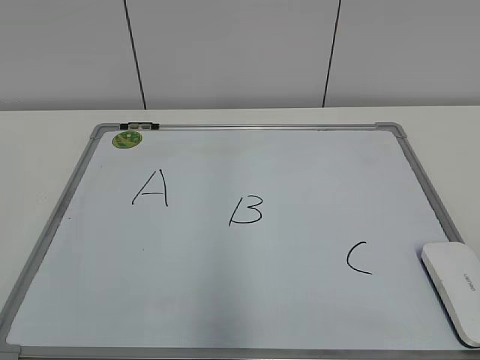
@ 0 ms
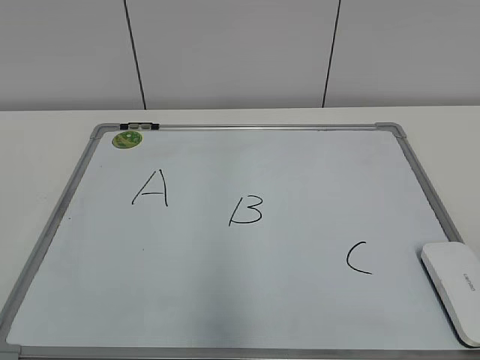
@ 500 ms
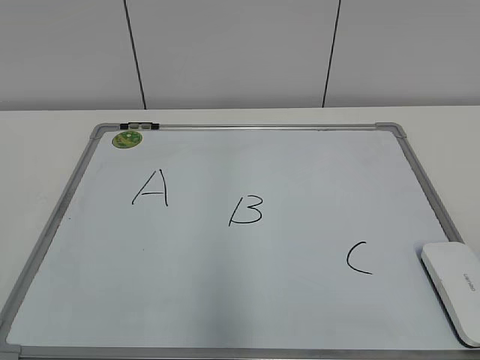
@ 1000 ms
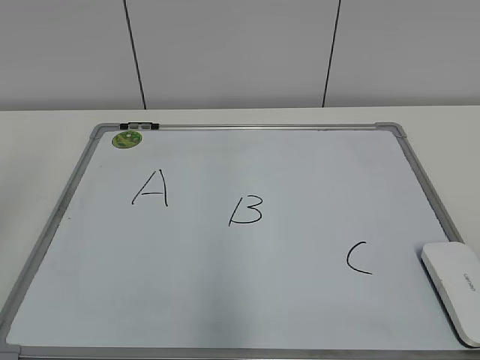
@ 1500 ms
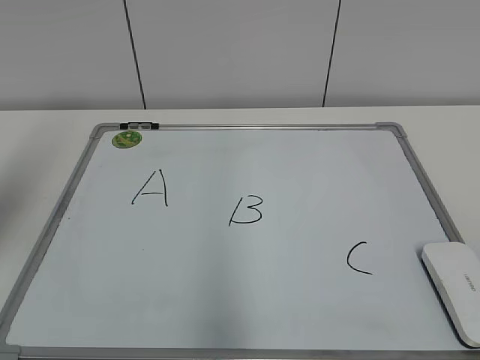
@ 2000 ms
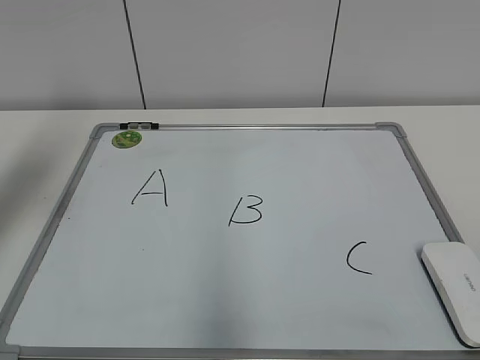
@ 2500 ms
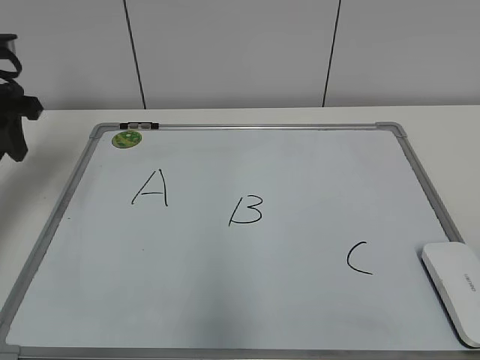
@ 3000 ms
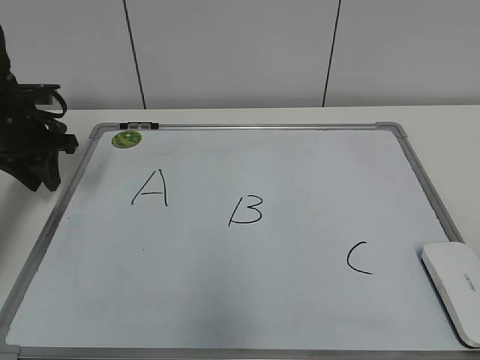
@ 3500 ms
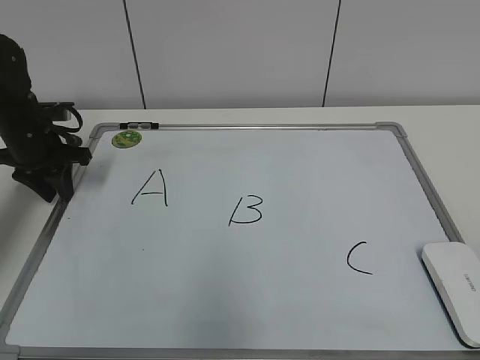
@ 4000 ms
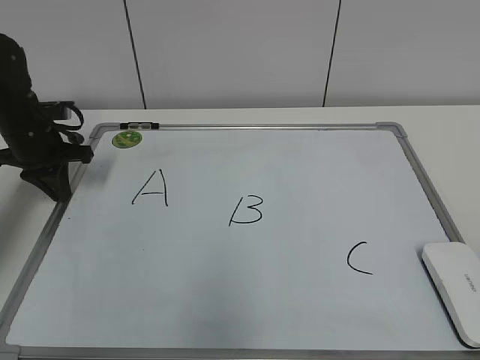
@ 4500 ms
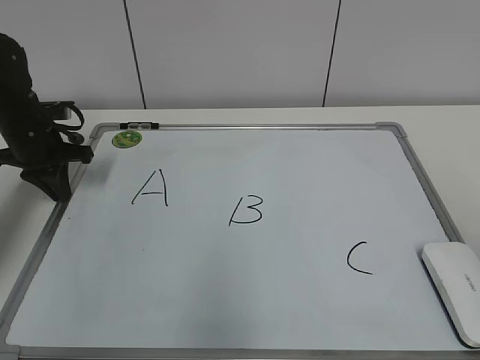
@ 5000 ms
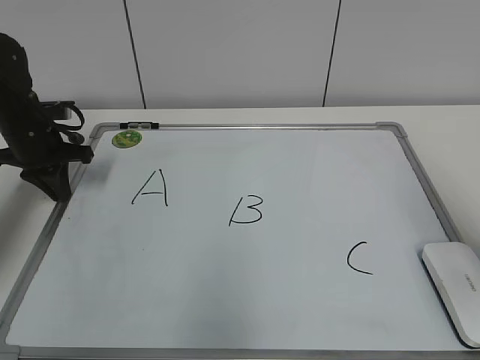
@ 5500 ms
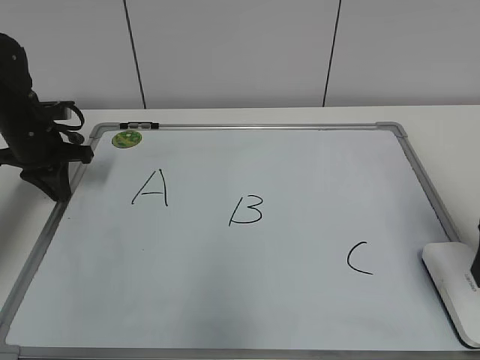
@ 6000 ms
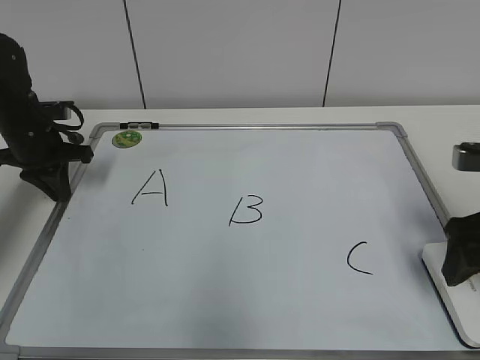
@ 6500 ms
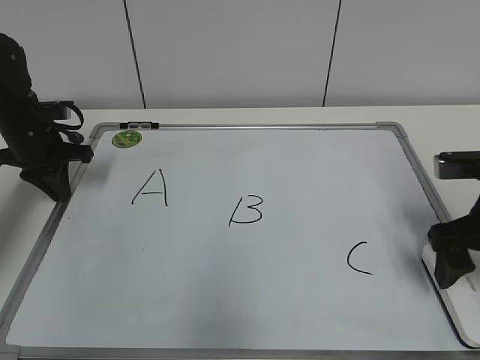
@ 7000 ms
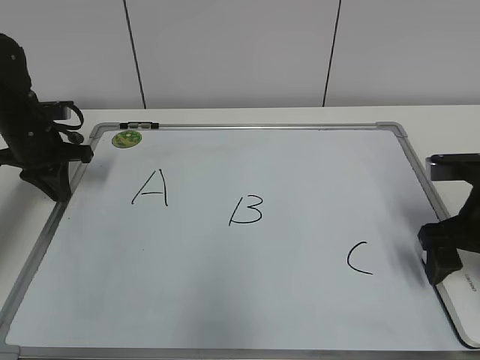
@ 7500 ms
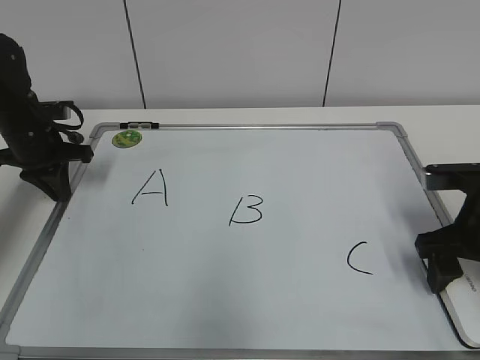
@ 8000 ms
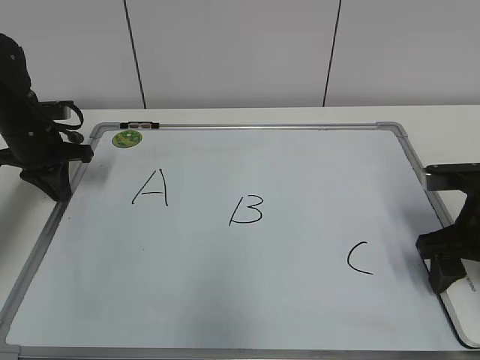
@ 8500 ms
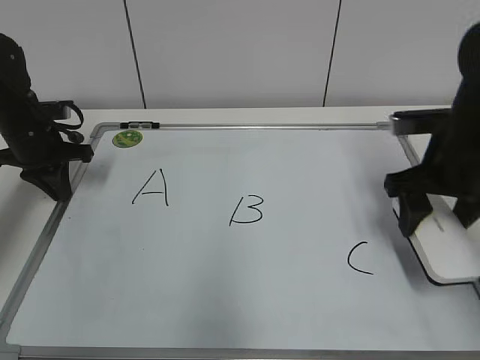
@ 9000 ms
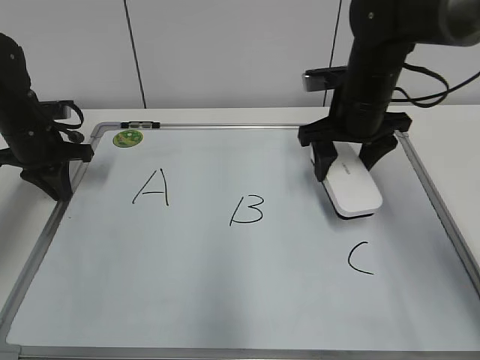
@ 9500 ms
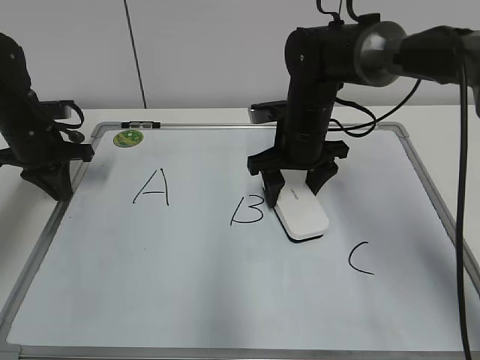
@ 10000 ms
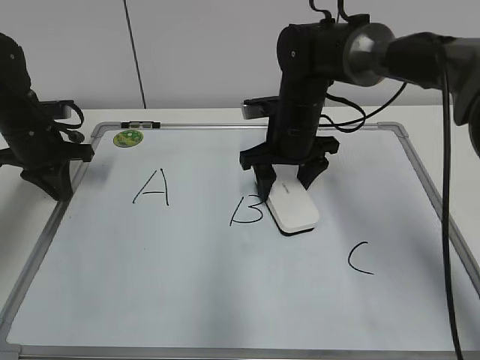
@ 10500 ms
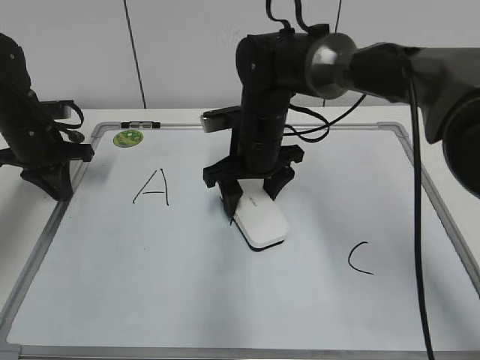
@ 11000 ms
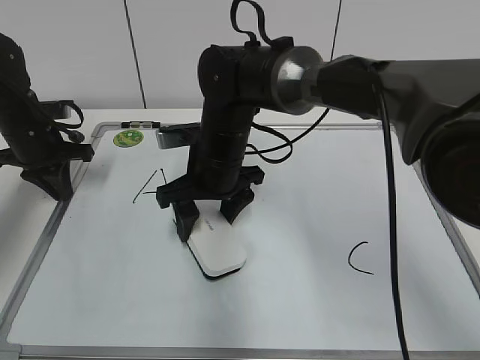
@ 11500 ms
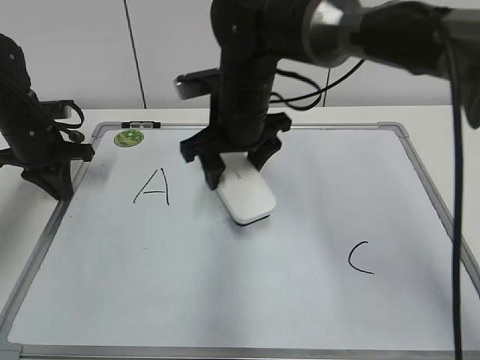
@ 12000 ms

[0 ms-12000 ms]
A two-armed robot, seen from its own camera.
Task of the whole recording: pick up the eraser on the blackboard and erase the letter "B".
Step, 0 ms to 4000 ms: Hold the drawing board steady with your left hand.
Step, 4500 ms to 8000 ms: Grab the eraser with your right hand.
Step, 9000 ms to 11500 ms: Erase the letter B with your right hand.
2000 ms to 4000 ms: The left gripper travels downward and forward by about 30 cm.
4000 ms to 6000 ms: The right gripper goes some 25 cm forward, and opens, while the left gripper closes up.
6000 ms to 8000 ms: The right gripper travels downward and forward by approximately 10 cm, and closes.
8000 ms to 10000 ms: The right gripper heads to the left and forward, covering approximately 25 cm.
10000 ms to 12000 ms: The right gripper is displaced to the left and upward by approximately 10 cm.

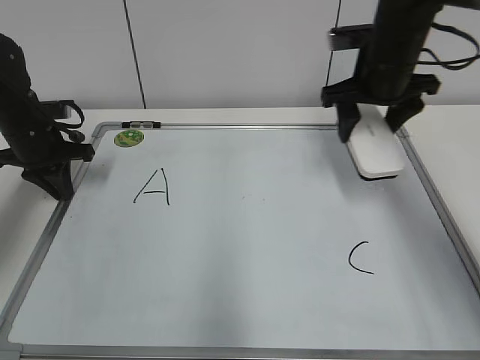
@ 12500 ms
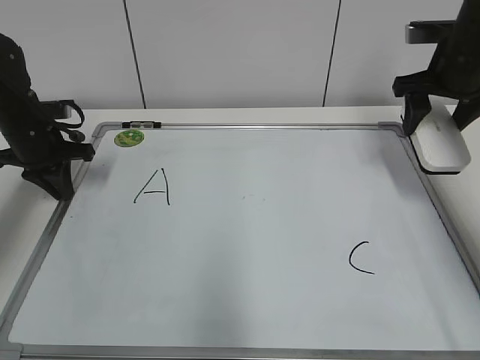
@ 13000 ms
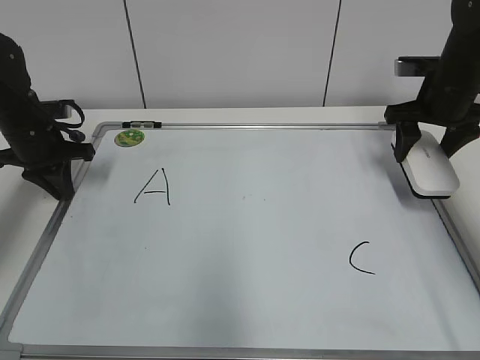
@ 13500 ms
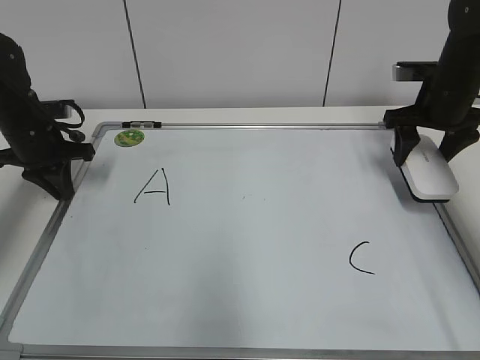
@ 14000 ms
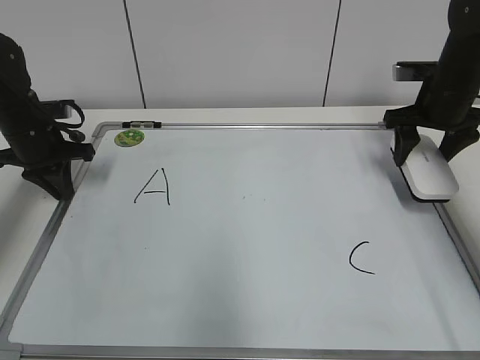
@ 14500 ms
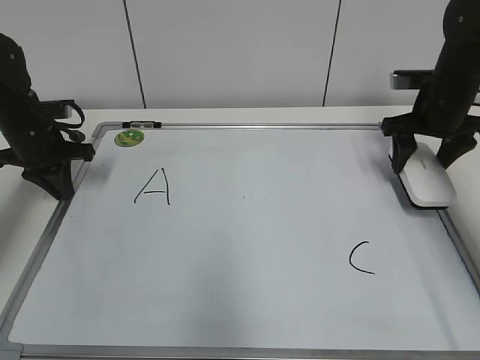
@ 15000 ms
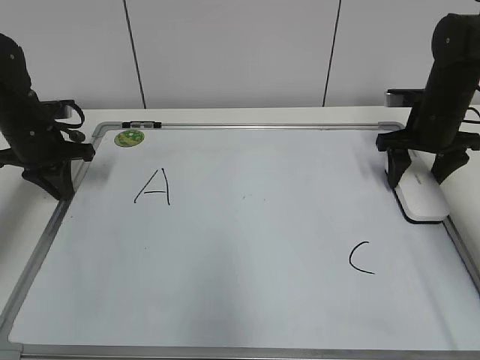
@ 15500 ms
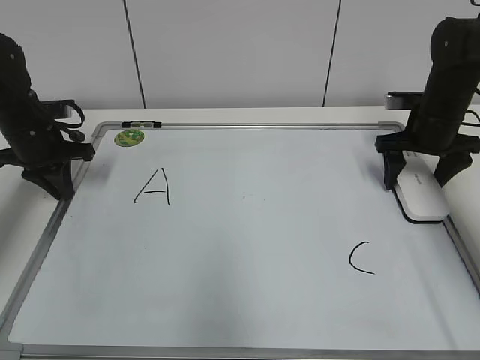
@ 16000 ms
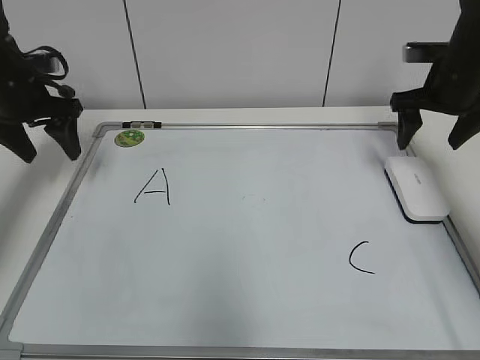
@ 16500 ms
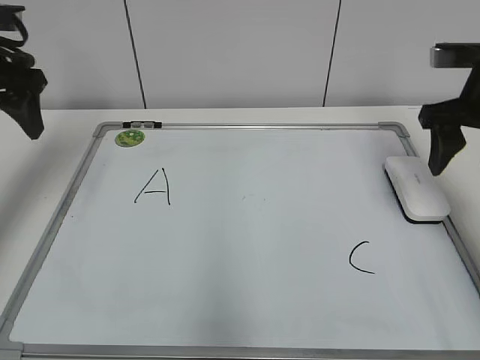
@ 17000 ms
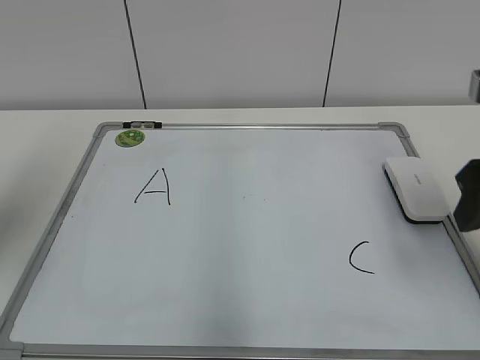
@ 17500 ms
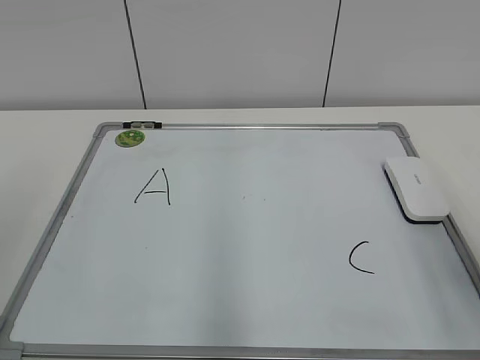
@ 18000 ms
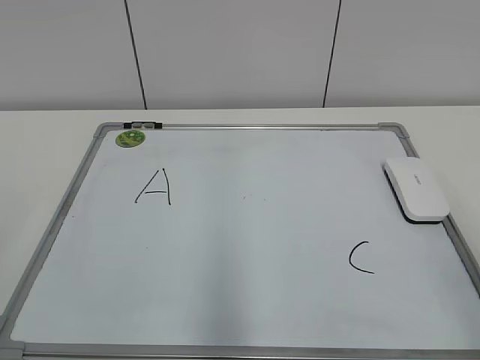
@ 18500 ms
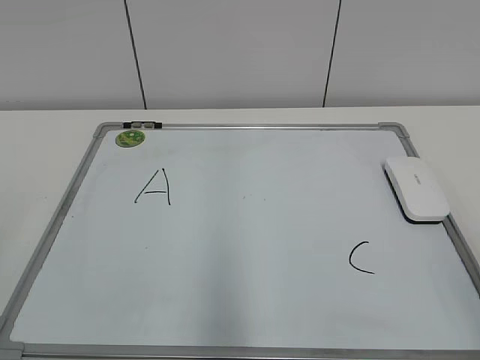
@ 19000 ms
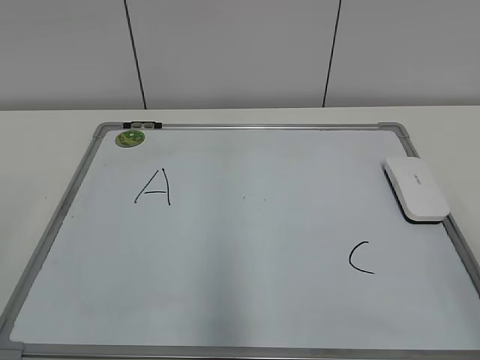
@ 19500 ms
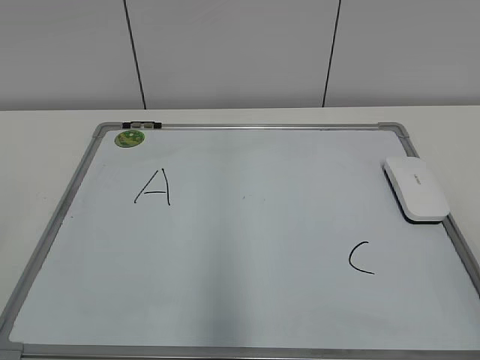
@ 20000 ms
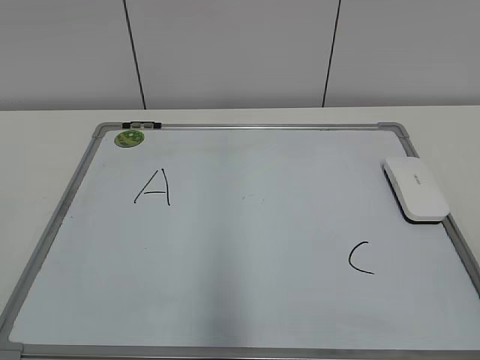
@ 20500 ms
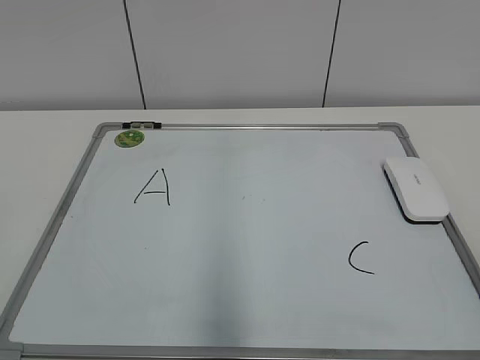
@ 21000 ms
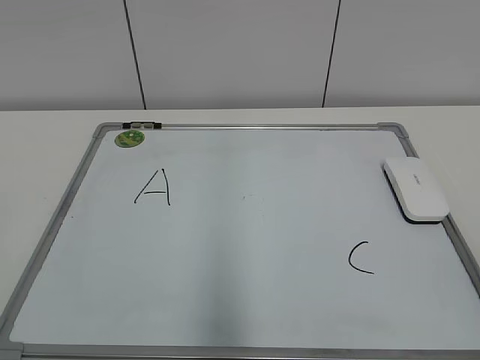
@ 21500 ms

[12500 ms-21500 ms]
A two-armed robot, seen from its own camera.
Task of the whole recording: pick up the eraser on the blackboard and erase the letter "B".
12500 ms to 14500 ms: The right gripper is displaced to the right and downward by some 10 cm.
14500 ms to 17000 ms: The right gripper is displaced backward and upward by about 10 cm, and opens, then closes once more. The left gripper moves upward and backward, approximately 15 cm, and opens its fingers.
17000 ms to 19500 ms: Both grippers travel together backward, roughly 30 cm.
